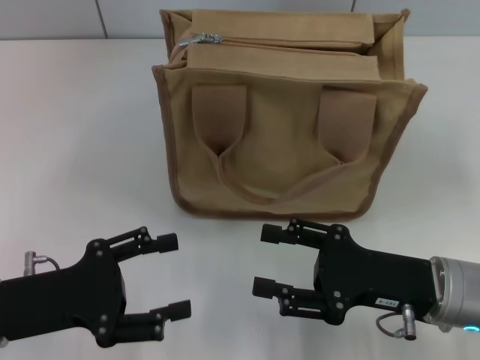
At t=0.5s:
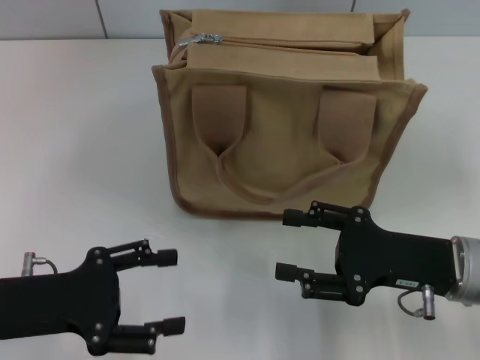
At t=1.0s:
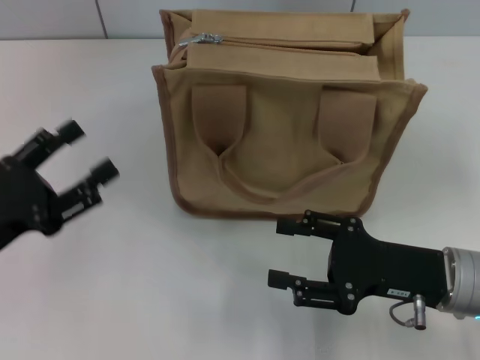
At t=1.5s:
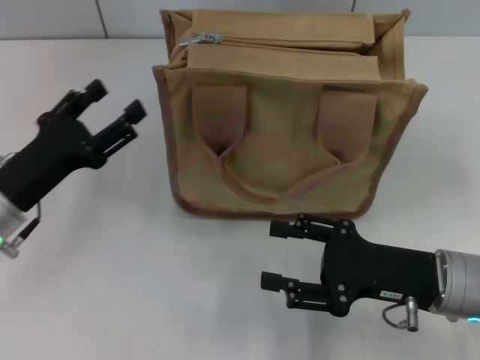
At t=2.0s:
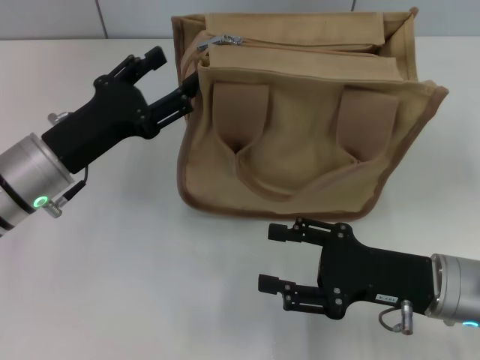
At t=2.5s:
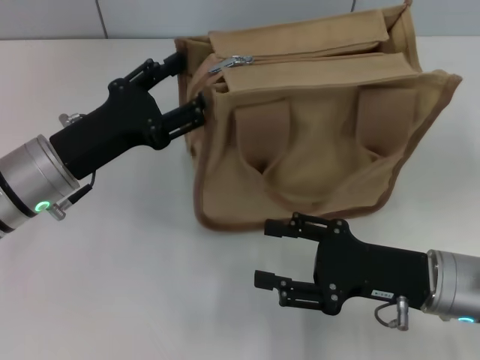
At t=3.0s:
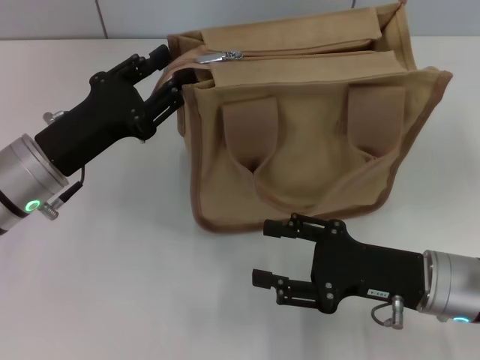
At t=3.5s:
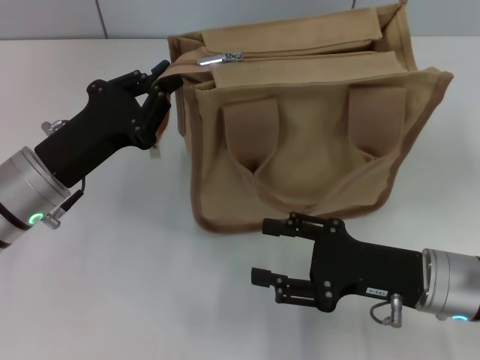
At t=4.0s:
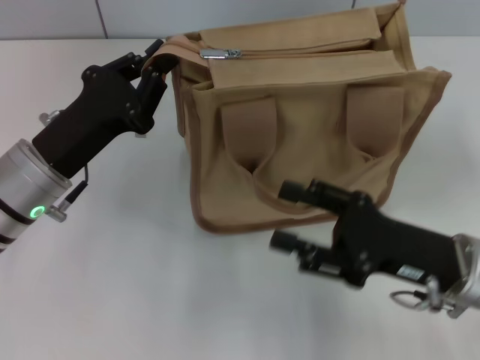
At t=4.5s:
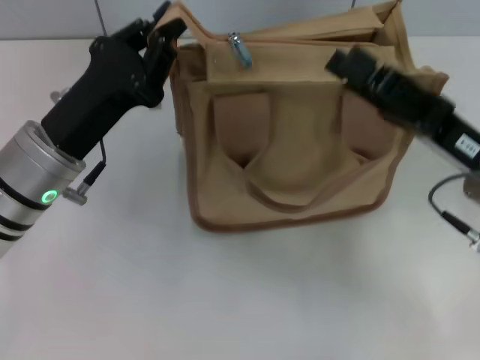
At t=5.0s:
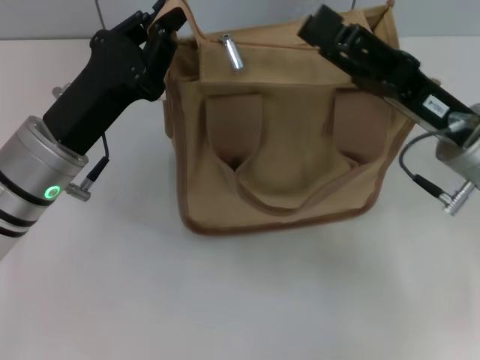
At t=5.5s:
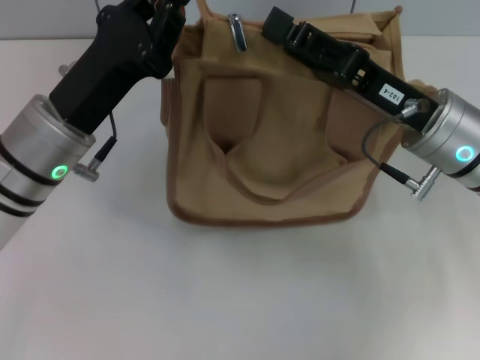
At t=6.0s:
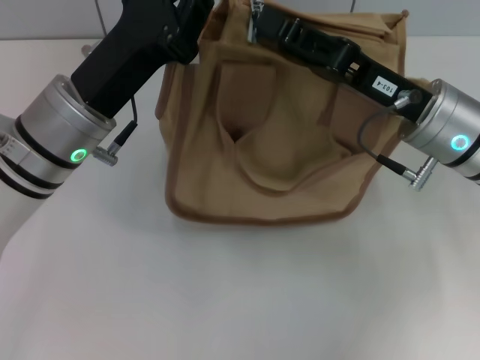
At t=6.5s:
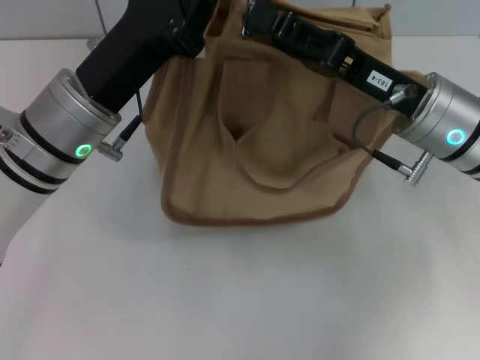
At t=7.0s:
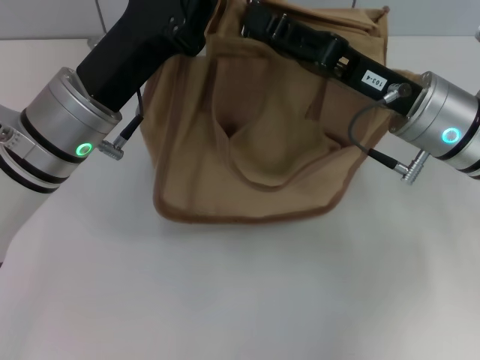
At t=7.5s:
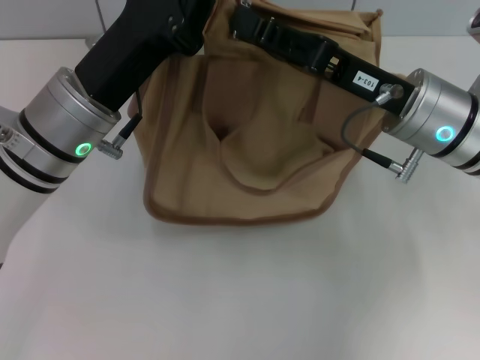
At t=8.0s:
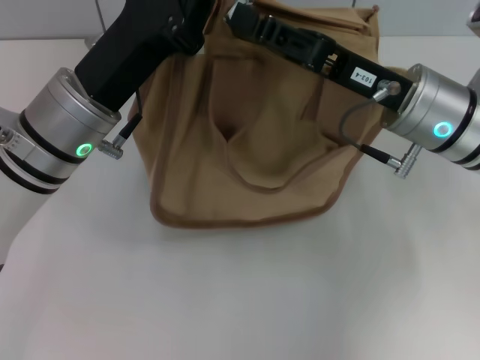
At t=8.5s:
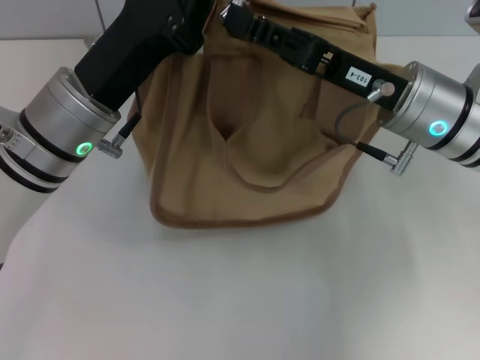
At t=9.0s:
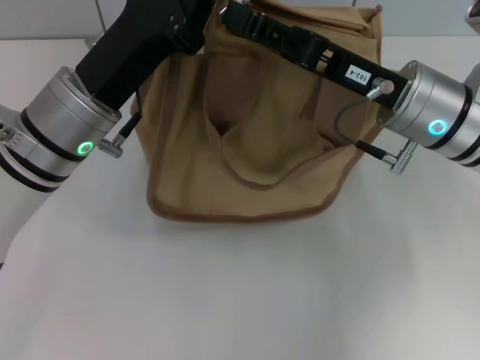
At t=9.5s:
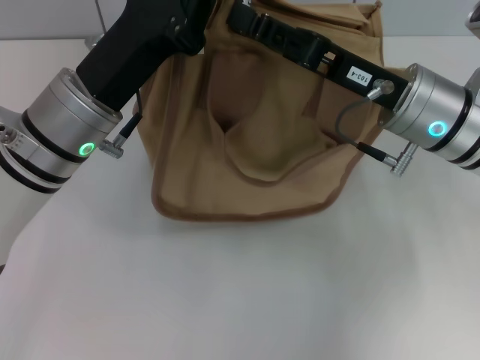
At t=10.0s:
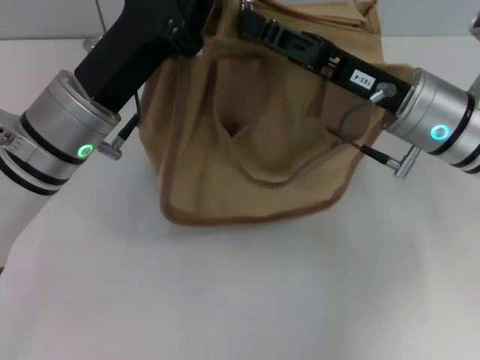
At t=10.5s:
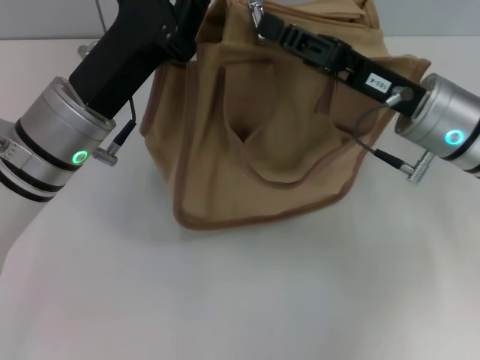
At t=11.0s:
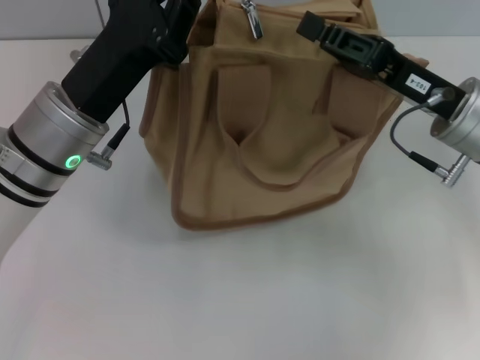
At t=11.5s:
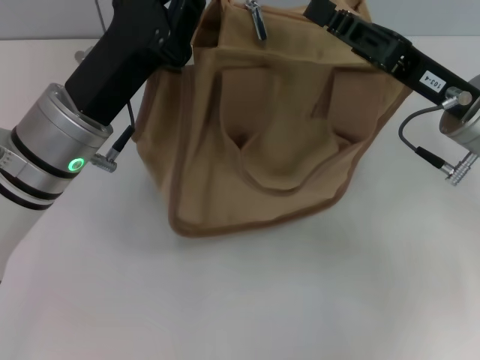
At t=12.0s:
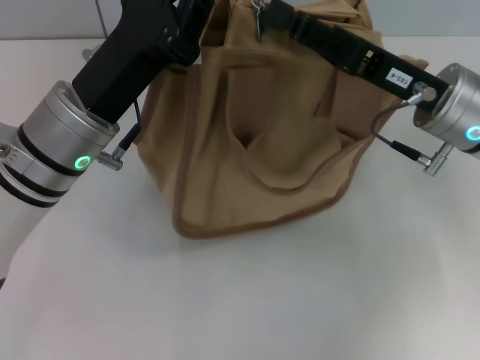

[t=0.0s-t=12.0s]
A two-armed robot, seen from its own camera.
t=0.0s to t=2.0s: The left gripper heads forward, covering about 10 cm.
t=2.0s to t=4.0s: The left gripper closes its fingers.
t=4.0s to t=6.0s: The right gripper shifts some 10 cm forward and upward. Meanwhile the left gripper ends up roughly 5 cm from where it was.
t=6.0s to t=8.0s: The grippers stay close to where they were, moving slightly.
t=8.0s to t=10.0s: The two grippers keep their place.
t=10.0s to t=12.0s: The right gripper closes, then opens again.

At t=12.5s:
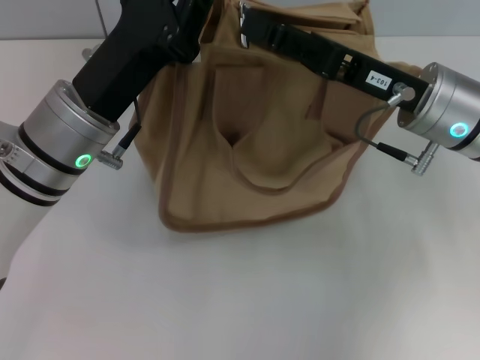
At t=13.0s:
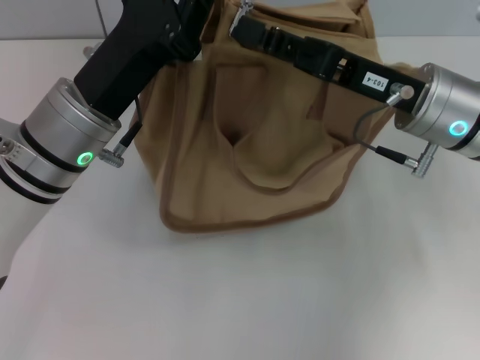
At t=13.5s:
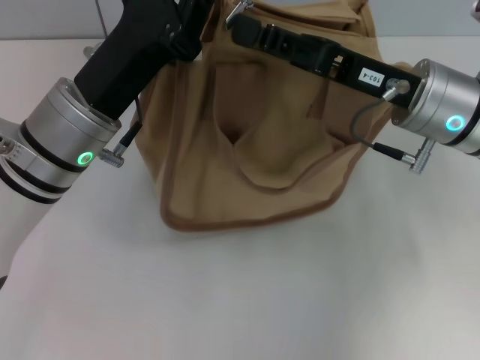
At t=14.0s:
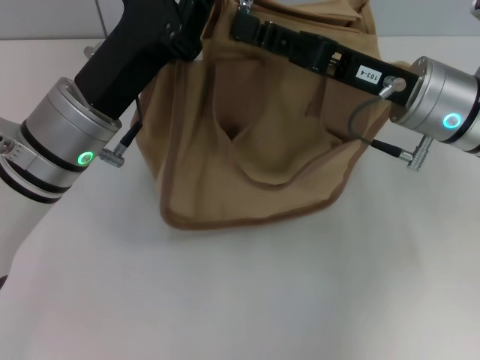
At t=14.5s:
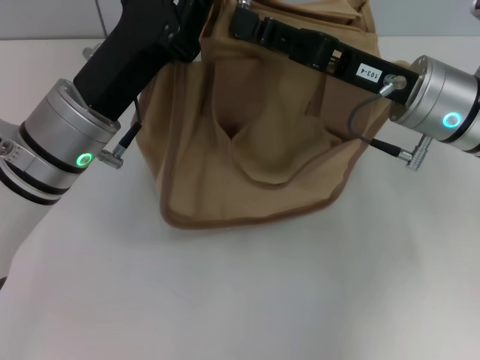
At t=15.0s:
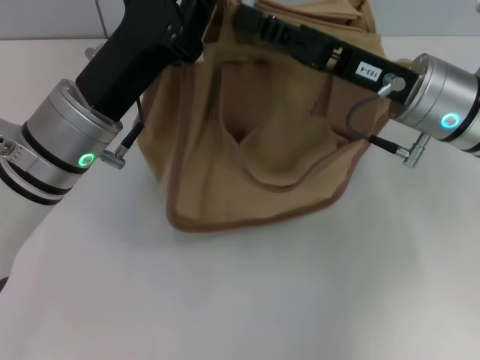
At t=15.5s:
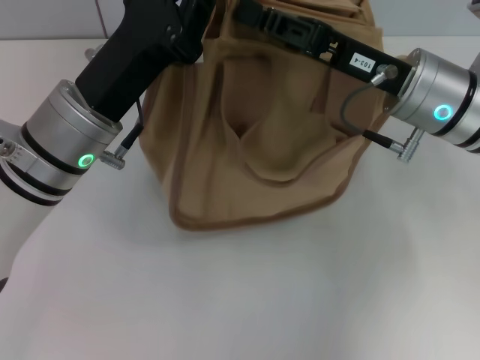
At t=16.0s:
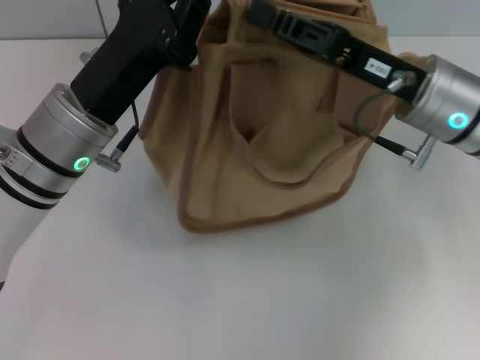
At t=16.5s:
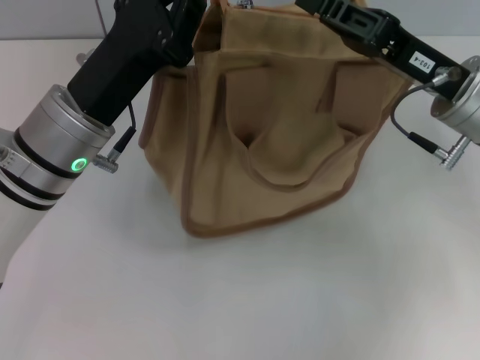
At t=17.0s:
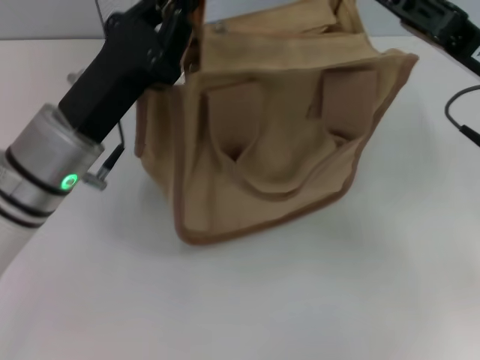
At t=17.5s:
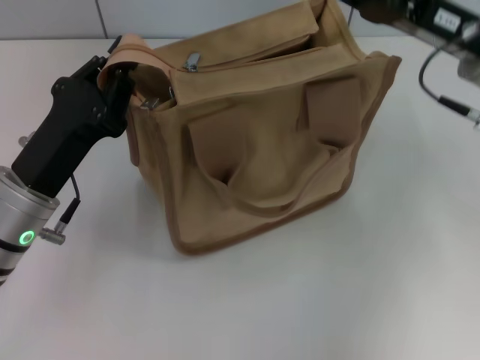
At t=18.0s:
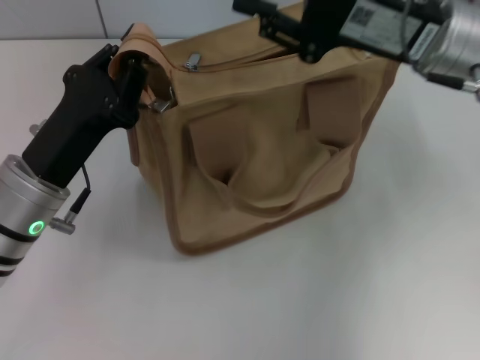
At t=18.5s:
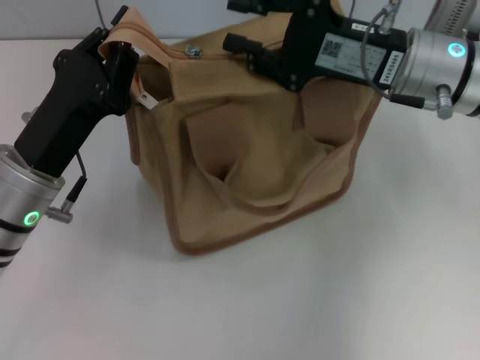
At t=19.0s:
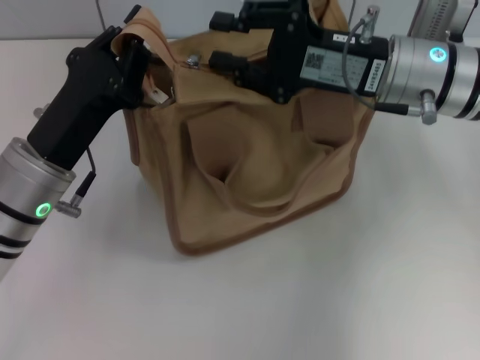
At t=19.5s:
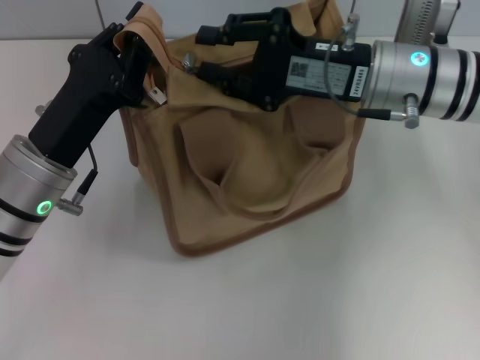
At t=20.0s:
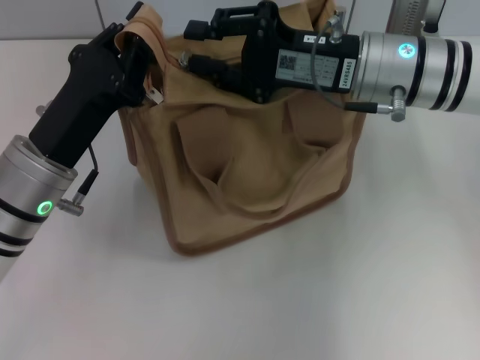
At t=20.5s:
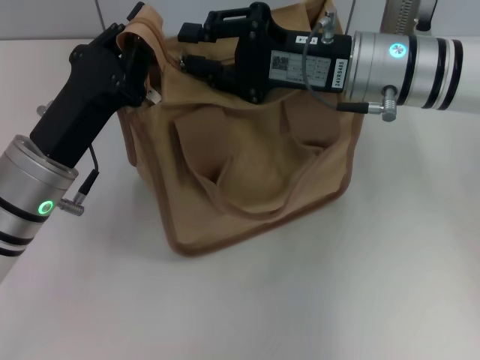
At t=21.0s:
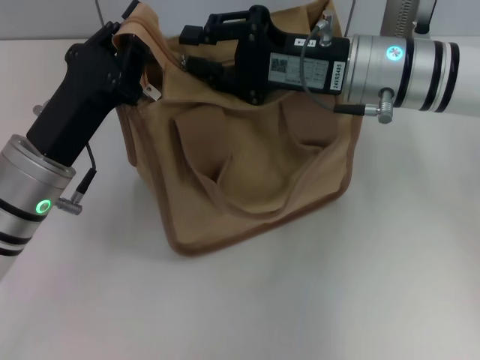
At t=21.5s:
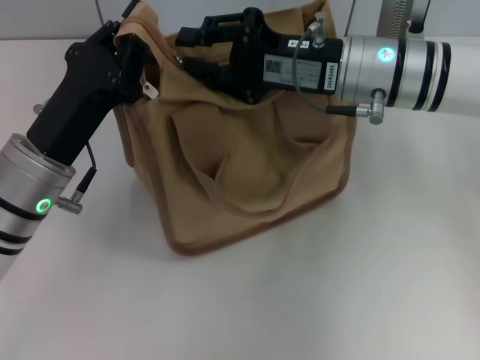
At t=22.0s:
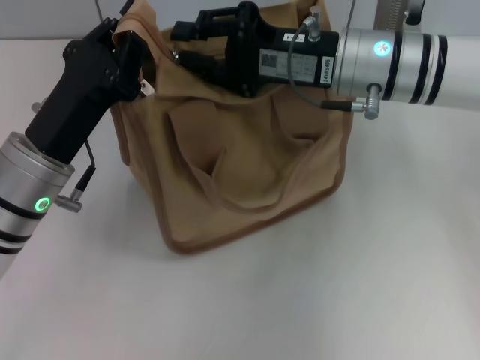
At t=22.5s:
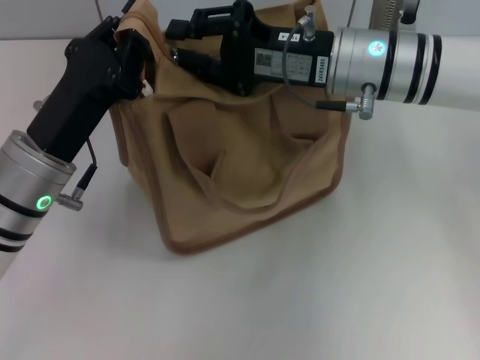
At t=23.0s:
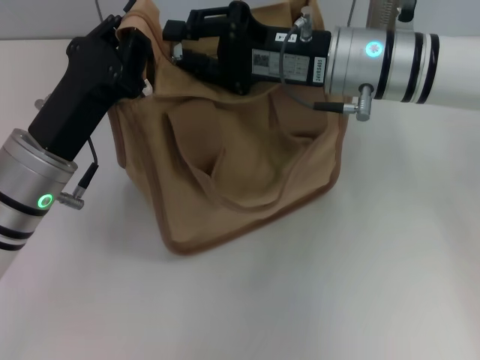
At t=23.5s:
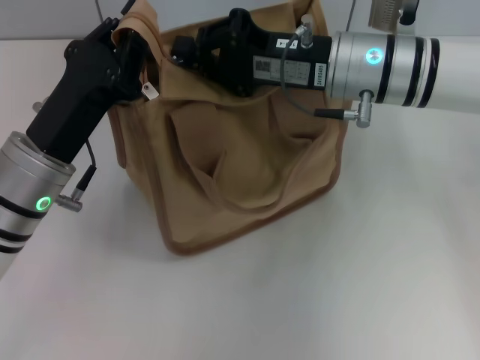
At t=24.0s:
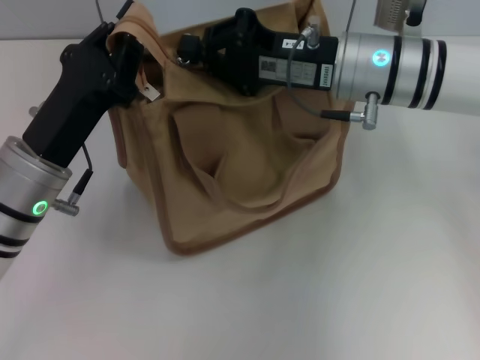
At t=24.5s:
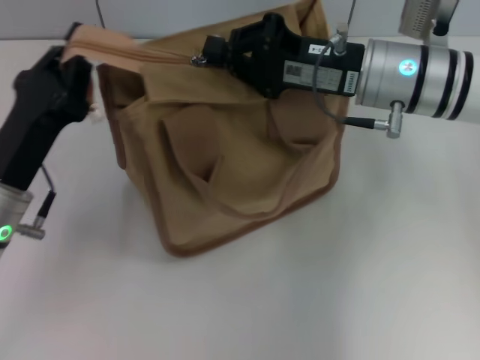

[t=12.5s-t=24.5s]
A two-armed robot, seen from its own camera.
t=12.5s to t=14.5s: The grippers make only small movements.
t=14.5s to t=16.5s: The right gripper closes.
t=16.5s to t=18.5s: The right gripper changes place by some 5 cm, and opens up; the left gripper moves about 5 cm.
t=20.5s to t=22.5s: There are only small adjustments of the grippers.
t=22.5s to t=24.5s: The right gripper closes its fingers.

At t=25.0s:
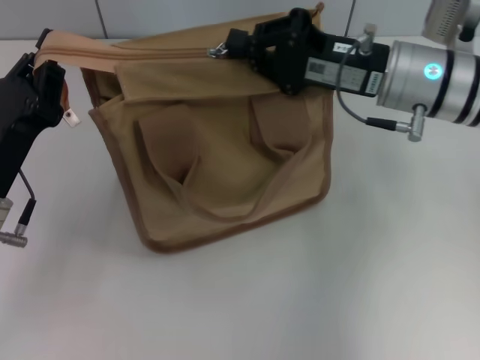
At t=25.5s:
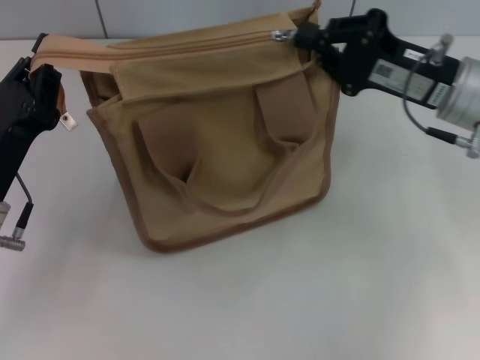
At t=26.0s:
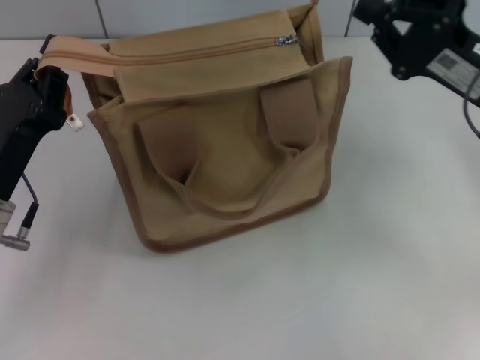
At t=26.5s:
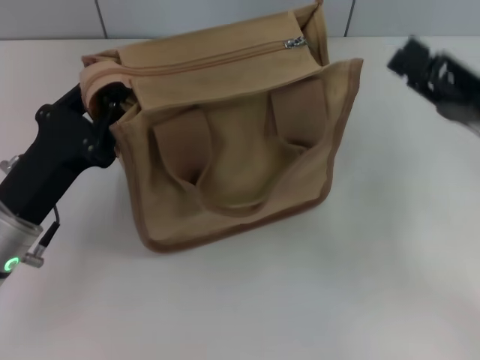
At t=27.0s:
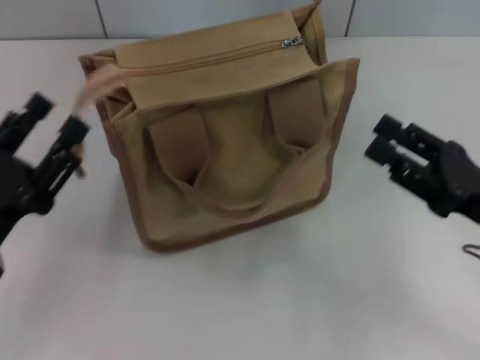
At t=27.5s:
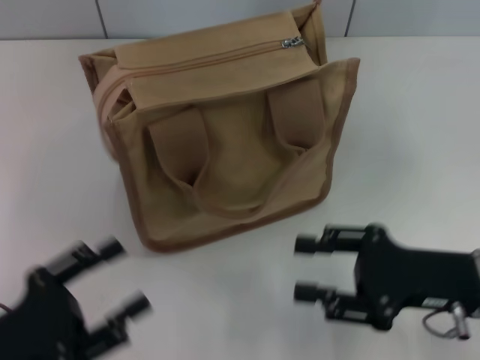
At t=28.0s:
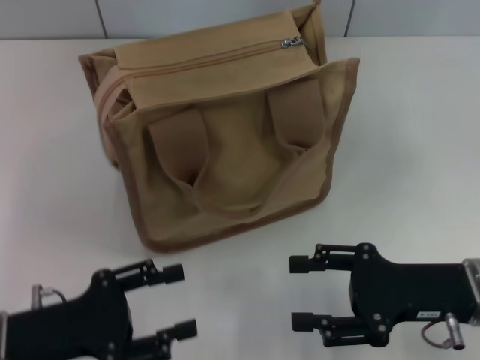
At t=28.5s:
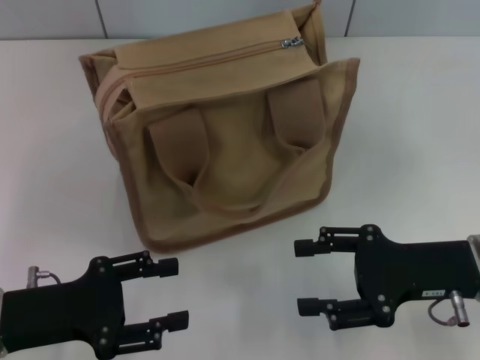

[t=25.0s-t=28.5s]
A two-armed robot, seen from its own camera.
Step, t=26.0s to t=26.5s: Grab the zipper with your left hand.
t=25.0s to t=27.0s: The right gripper is displaced backward, to the right and downward by approximately 20 cm, and opens its fingers. Meanwhile the left gripper shifts approximately 5 cm backward, and opens its fingers.
